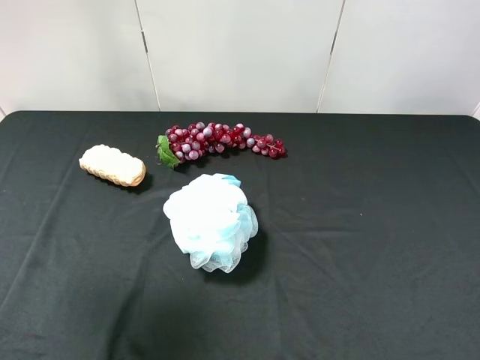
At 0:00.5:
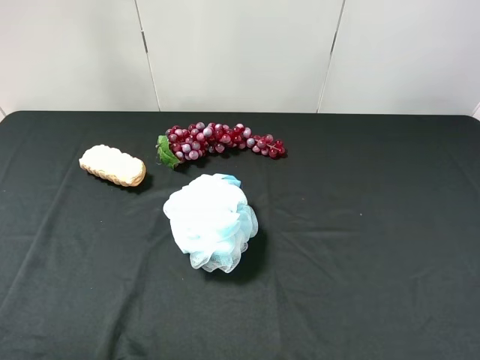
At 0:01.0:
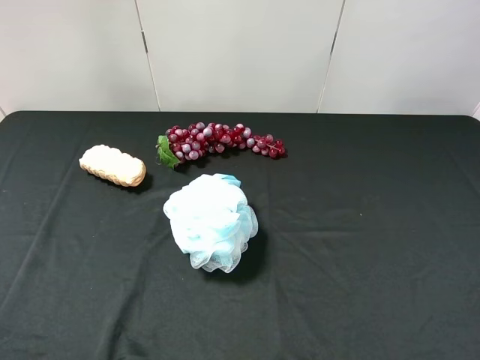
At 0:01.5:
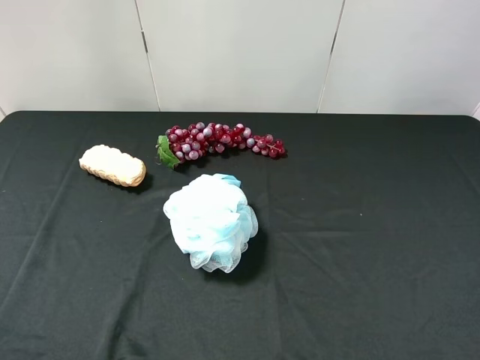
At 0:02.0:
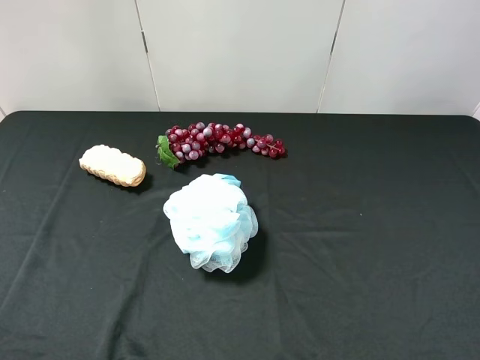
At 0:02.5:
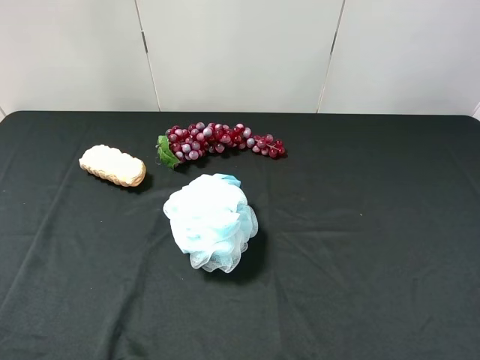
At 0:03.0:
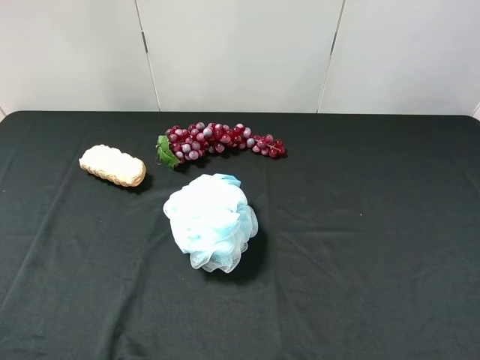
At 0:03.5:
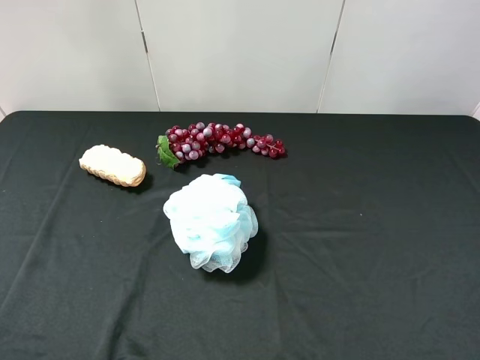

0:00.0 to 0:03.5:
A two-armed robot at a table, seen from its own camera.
Task of the whole recording: use the right gripper to pick up the item and transfer it from the right gripper to the left gripper.
0:00.0 to 0:02.0: The left gripper travels backward and downward by some 20 cm.
